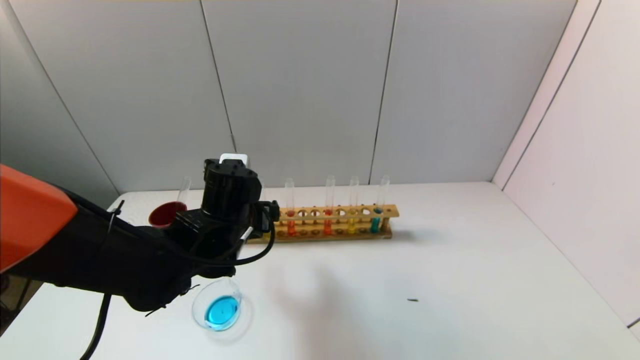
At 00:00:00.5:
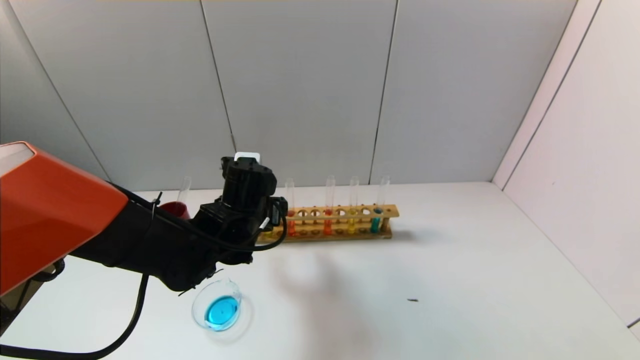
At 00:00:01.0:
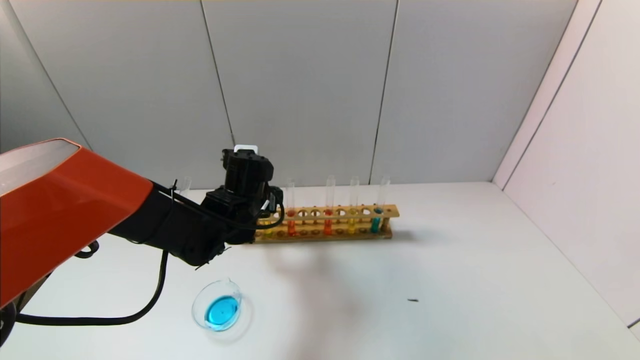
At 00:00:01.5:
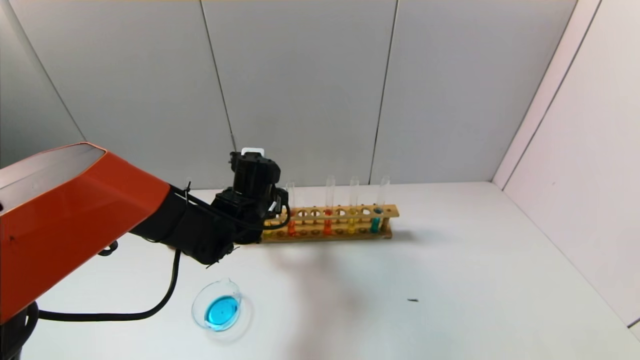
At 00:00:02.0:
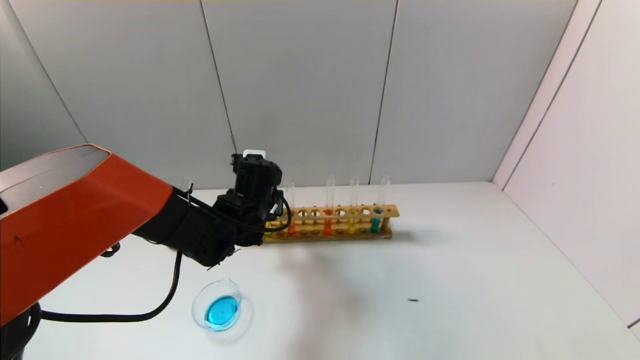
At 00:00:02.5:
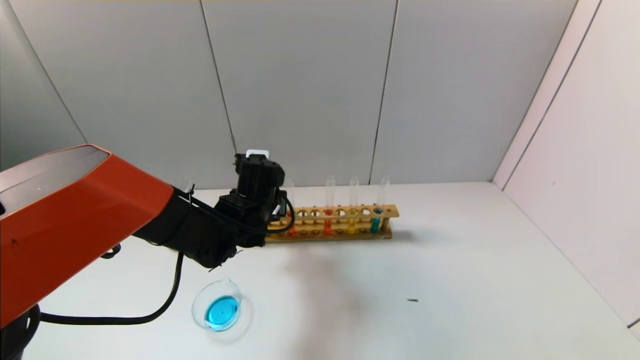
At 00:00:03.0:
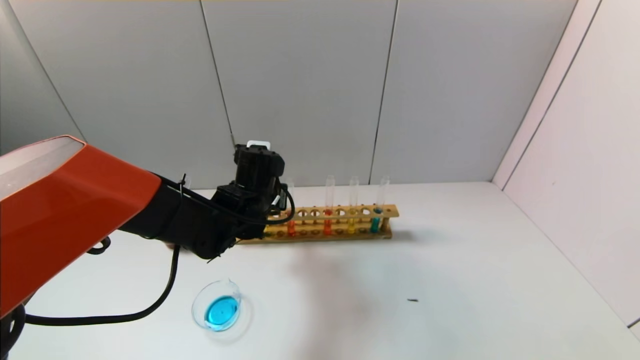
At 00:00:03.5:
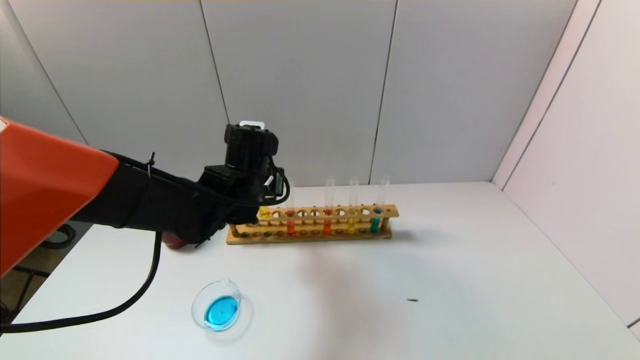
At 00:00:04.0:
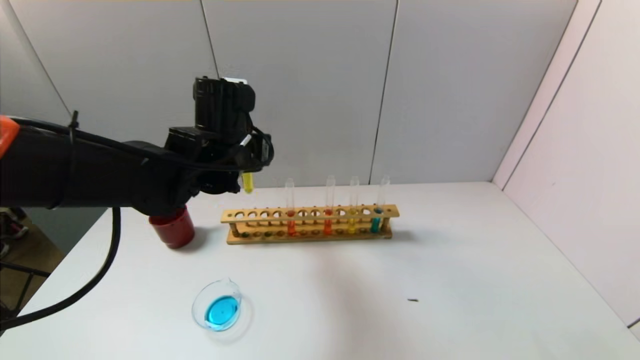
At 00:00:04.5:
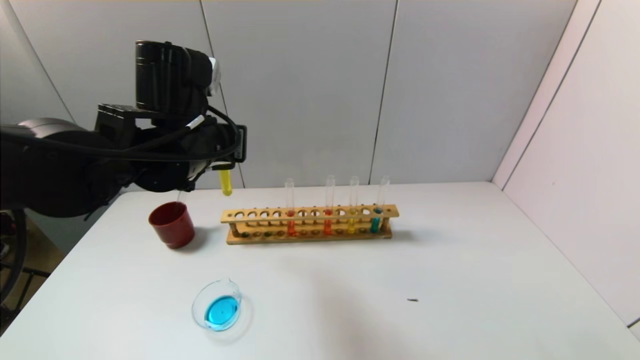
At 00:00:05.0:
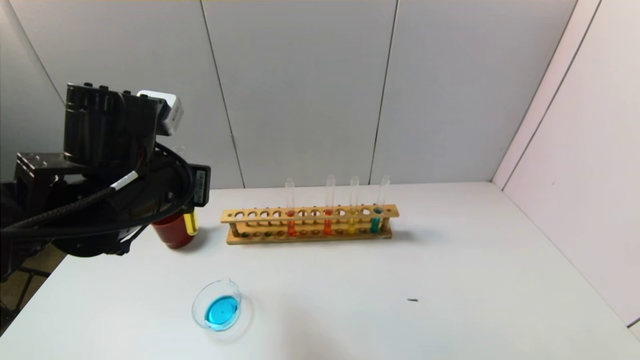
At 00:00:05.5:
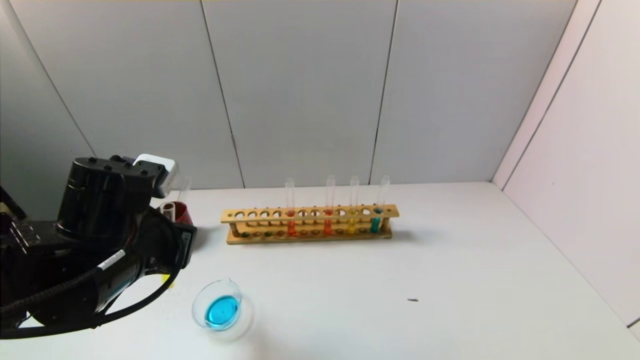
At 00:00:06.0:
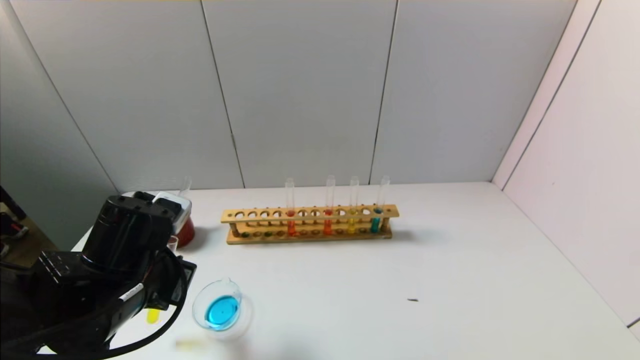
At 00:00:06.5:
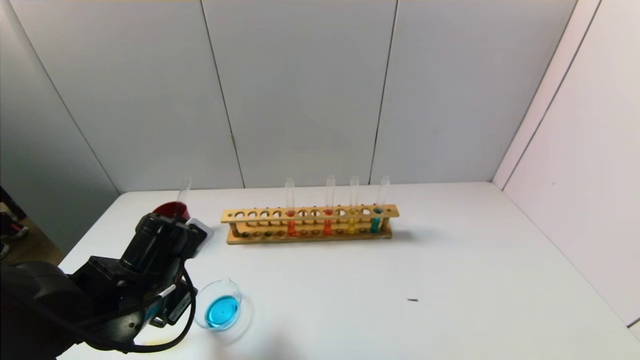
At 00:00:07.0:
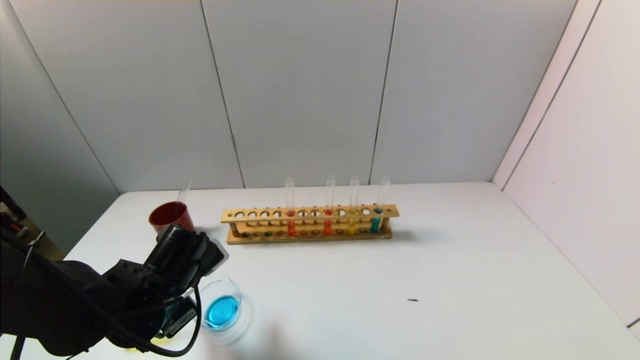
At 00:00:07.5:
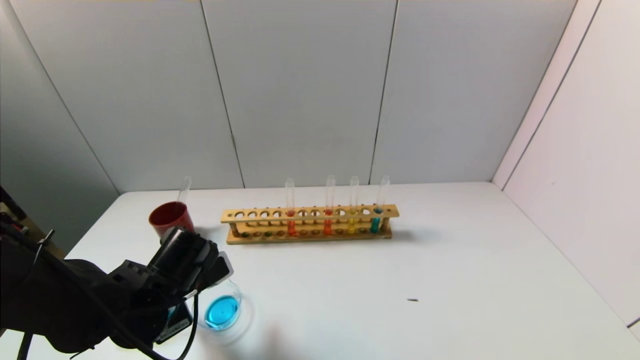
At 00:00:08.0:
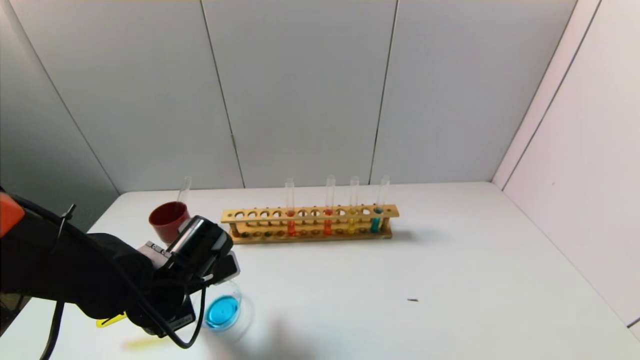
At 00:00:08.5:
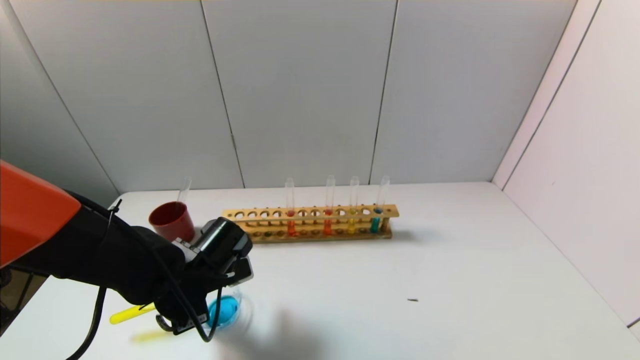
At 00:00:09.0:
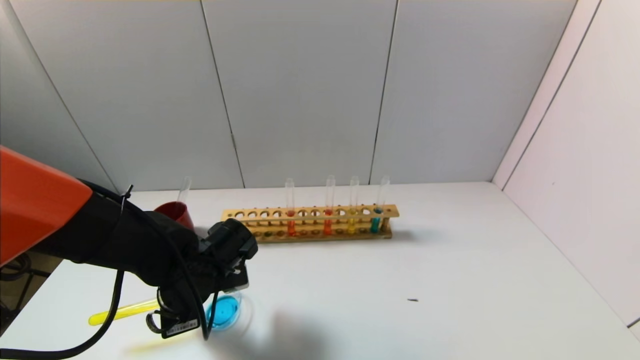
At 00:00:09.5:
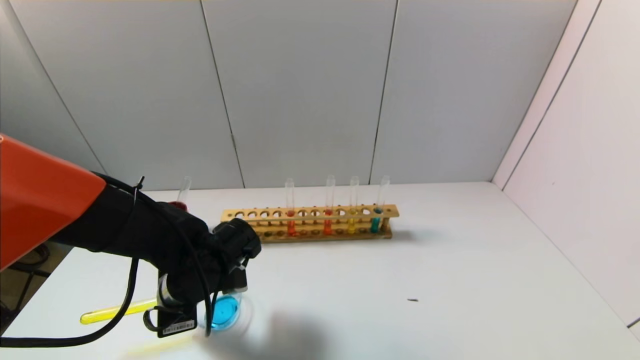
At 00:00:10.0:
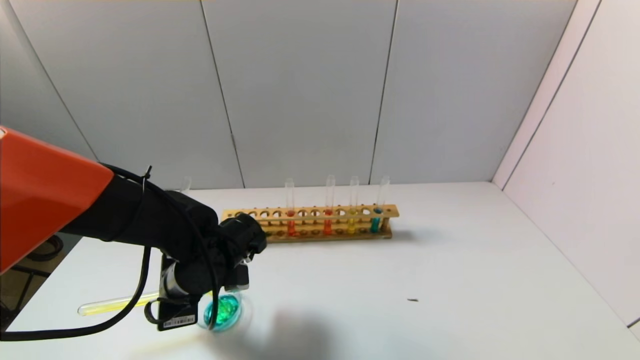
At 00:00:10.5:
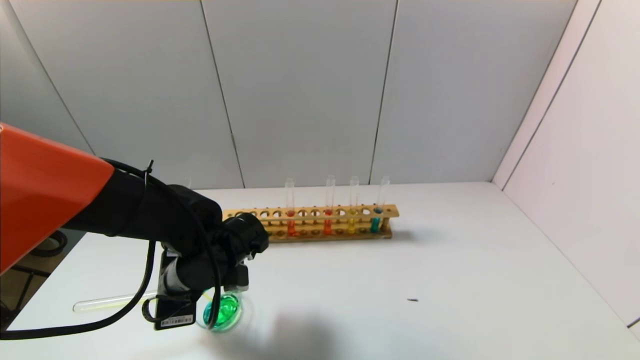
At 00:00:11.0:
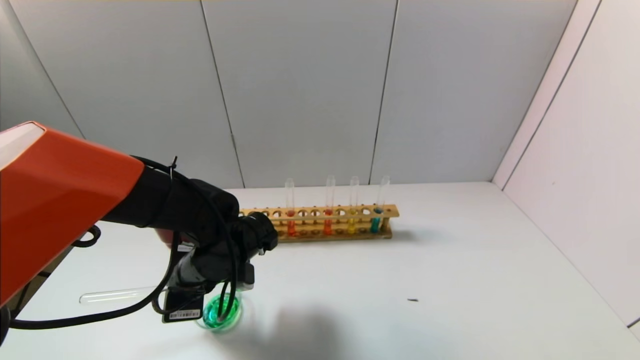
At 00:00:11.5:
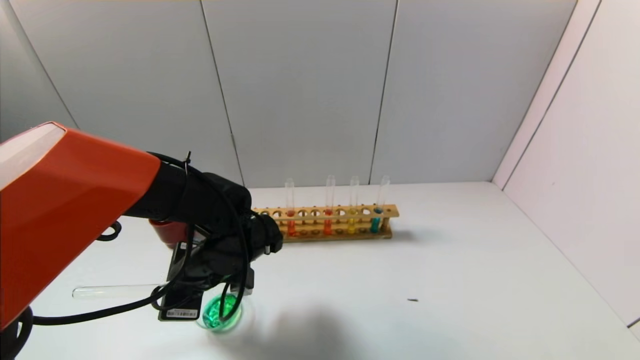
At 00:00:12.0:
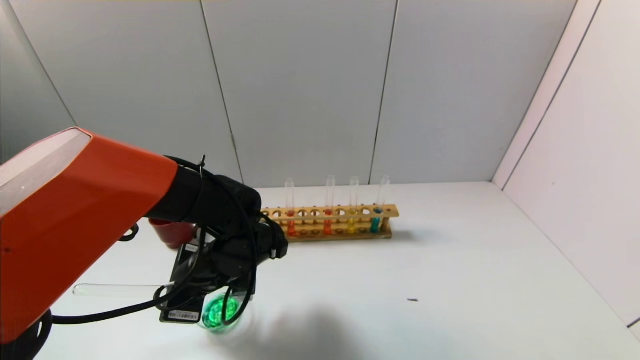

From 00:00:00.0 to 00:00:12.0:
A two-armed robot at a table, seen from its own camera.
Task of the whole recording: pick up the test tube with yellow pigment and the test tube with blue pigment by grippers and pour them into the beaker.
Step, from 00:00:00.0 to 00:00:02.0: Grasp the yellow reagent with the left gripper.
From 00:00:00.0 to 00:00:02.0: The left gripper moves forward, some 5 cm, and closes.
From 00:00:02.0 to 00:00:04.0: The left gripper shifts roughly 10 cm upward.
From 00:00:04.0 to 00:00:06.0: The left gripper shifts about 20 cm backward, downward and to the left.
From 00:00:06.0 to 00:00:08.0: The left gripper shifts roughly 5 cm downward.
From 00:00:10.0 to 00:00:12.0: The grippers move only a little.

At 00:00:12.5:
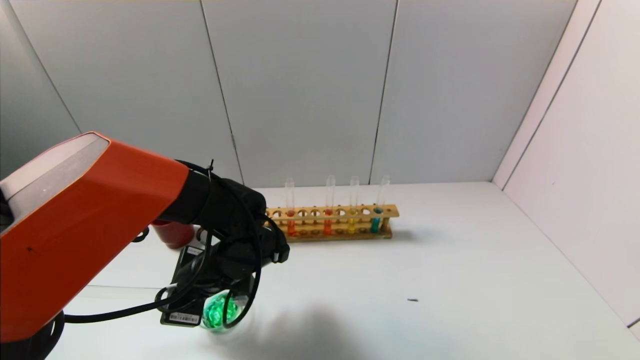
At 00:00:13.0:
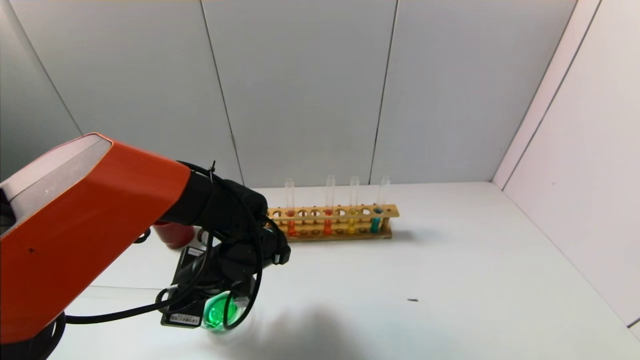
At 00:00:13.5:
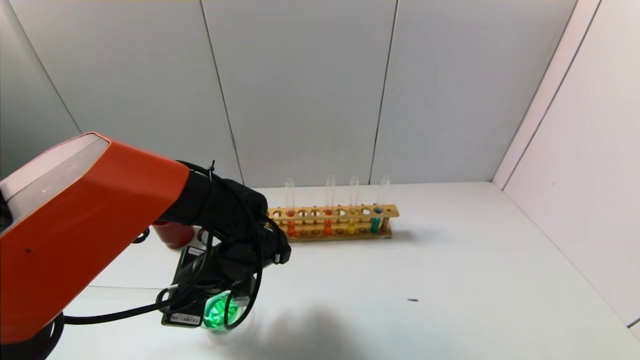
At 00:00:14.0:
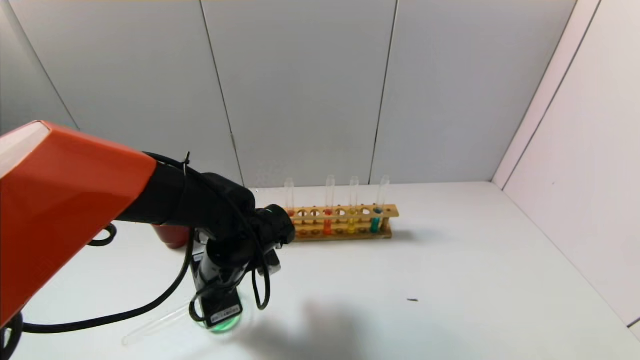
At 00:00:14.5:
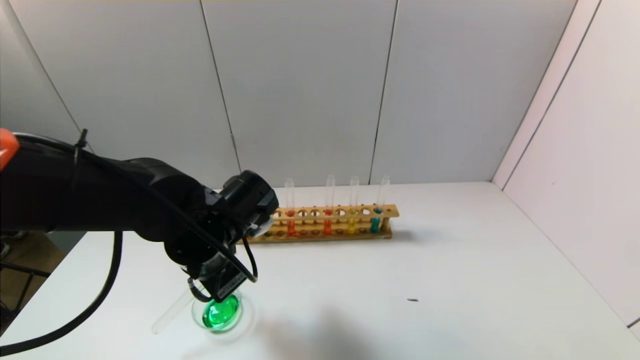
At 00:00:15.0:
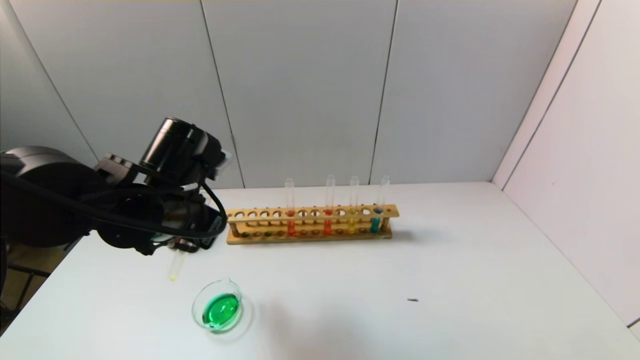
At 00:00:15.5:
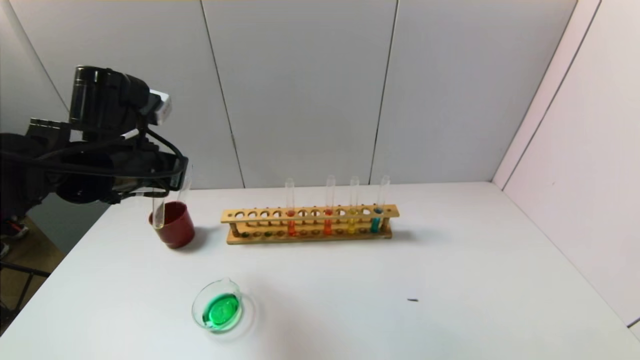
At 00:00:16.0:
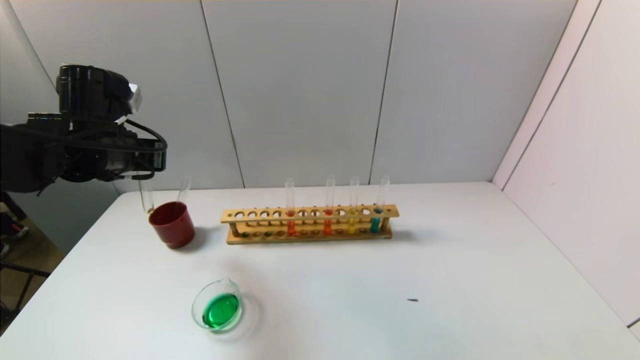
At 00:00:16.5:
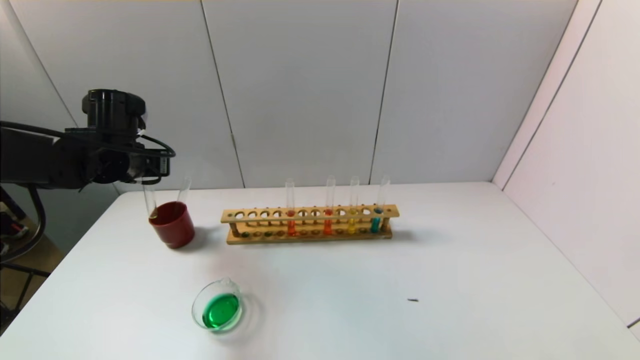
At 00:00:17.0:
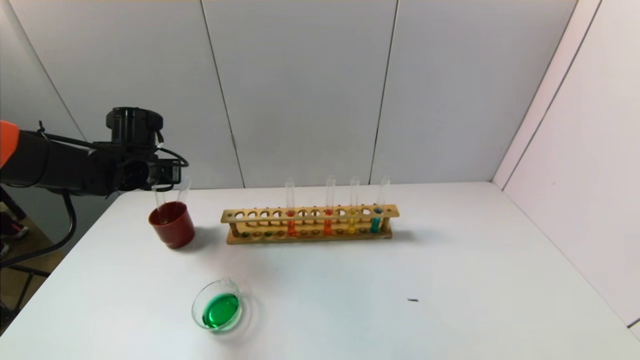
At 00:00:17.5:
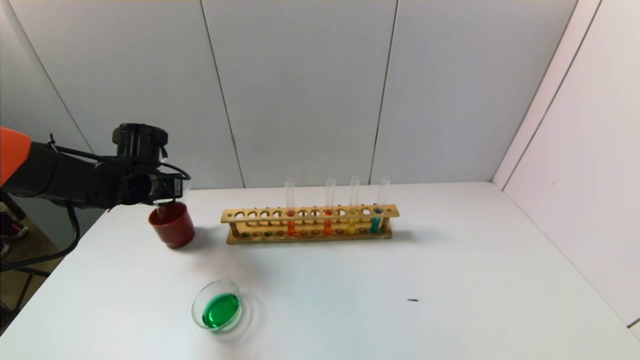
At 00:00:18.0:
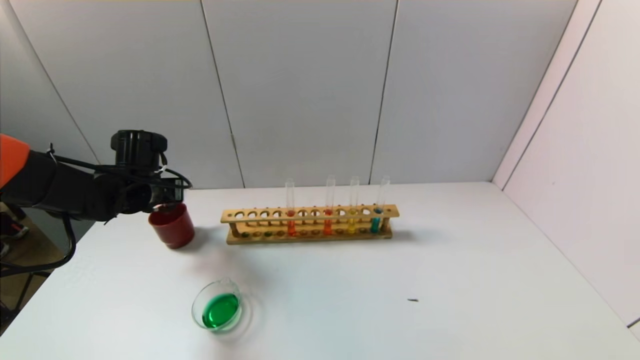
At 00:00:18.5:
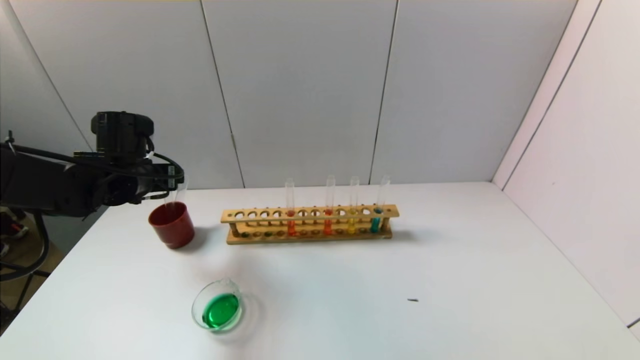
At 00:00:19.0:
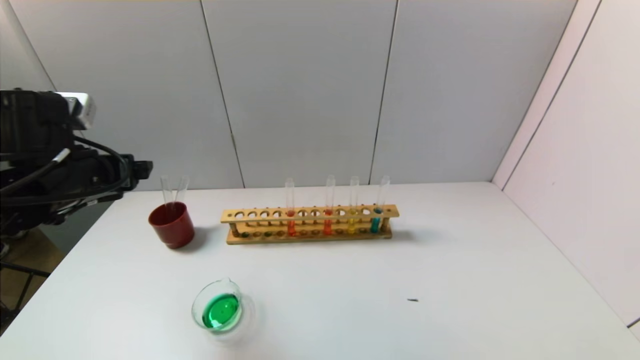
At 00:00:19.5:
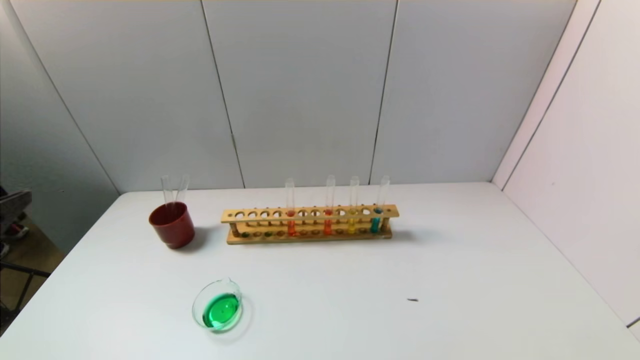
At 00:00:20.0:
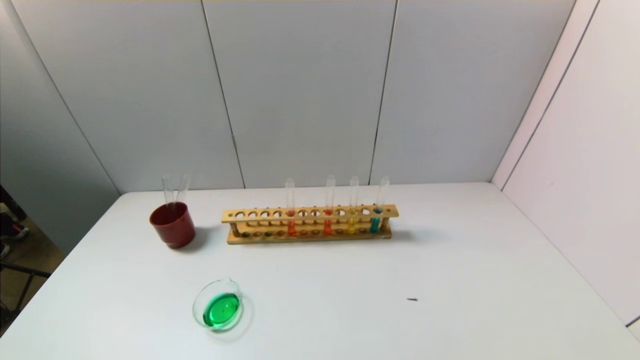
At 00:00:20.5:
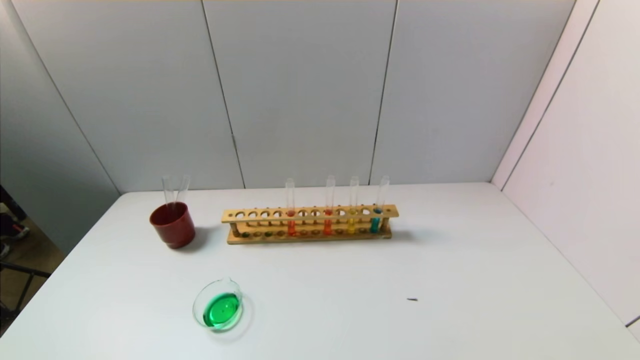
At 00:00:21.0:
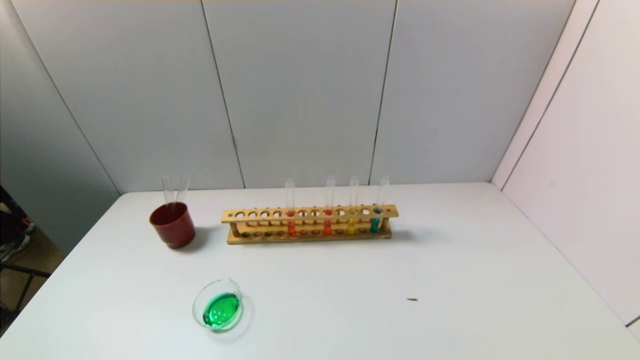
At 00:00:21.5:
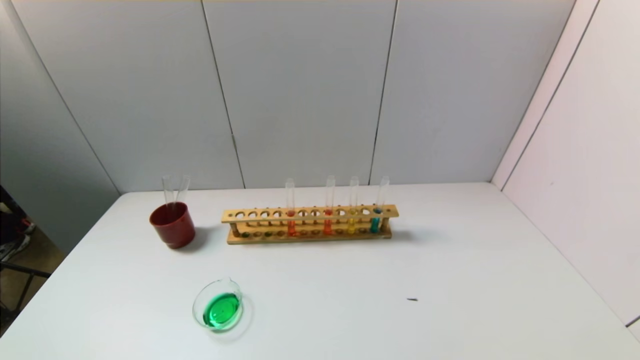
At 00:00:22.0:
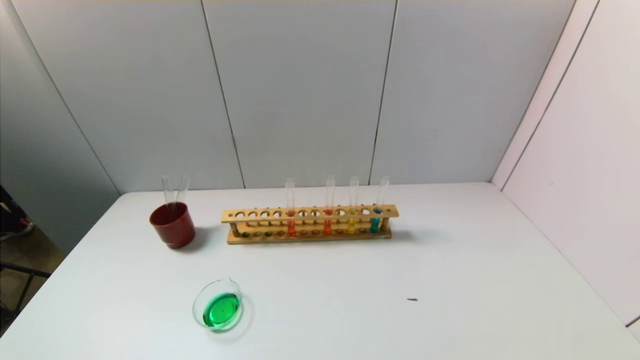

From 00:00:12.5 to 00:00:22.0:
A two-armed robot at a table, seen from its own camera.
Task of the whole recording: pick up the test tube with yellow pigment and the test tube with blue pigment by grippers and pour them into the beaker.
Step, from 00:00:14.5 to 00:00:18.5: Place the test tube into the brown cup with the left gripper.
From 00:00:12.5 to 00:00:14.5: The left gripper shifts some 5 cm upward.
From 00:00:14.5 to 00:00:16.5: The left gripper travels to the left and forward by roughly 20 cm.
From 00:00:16.5 to 00:00:18.0: The left gripper heads downward, covering some 5 cm.
From 00:00:18.0 to 00:00:20.0: The left gripper travels backward by roughly 40 cm, and opens its fingers.
